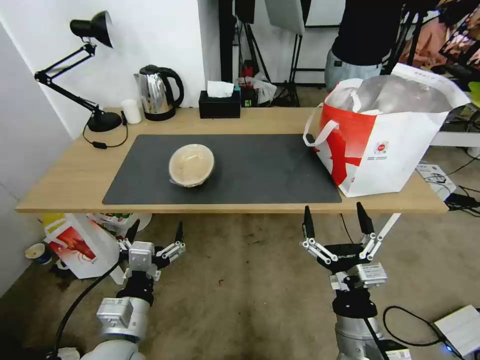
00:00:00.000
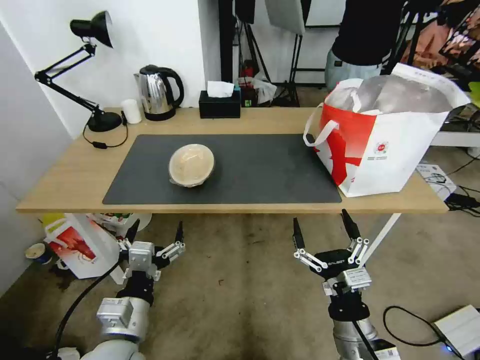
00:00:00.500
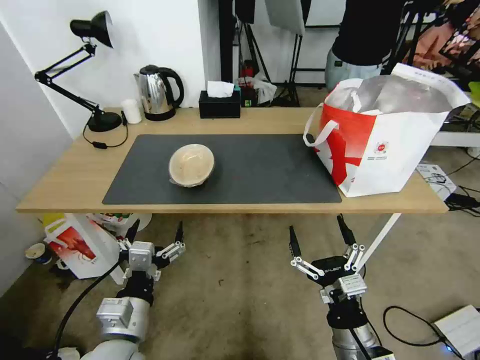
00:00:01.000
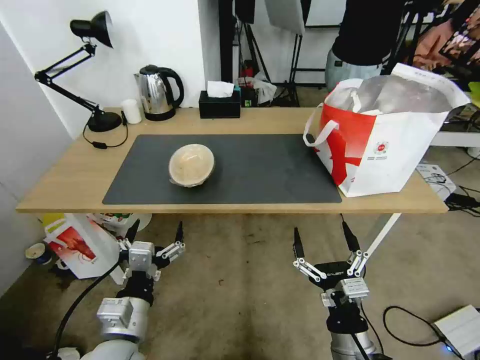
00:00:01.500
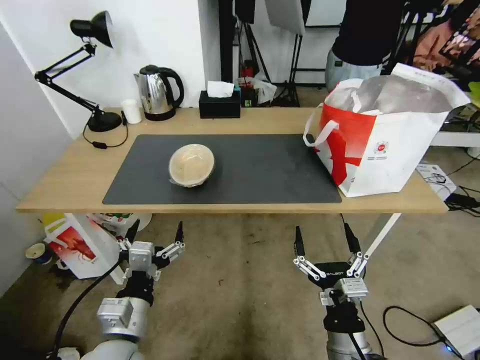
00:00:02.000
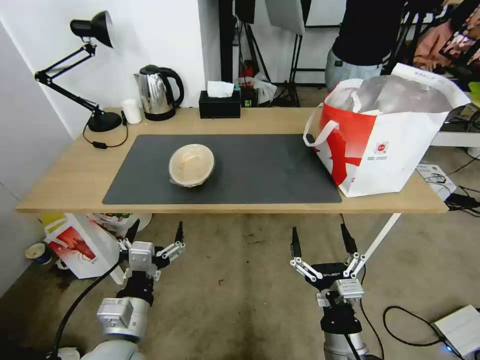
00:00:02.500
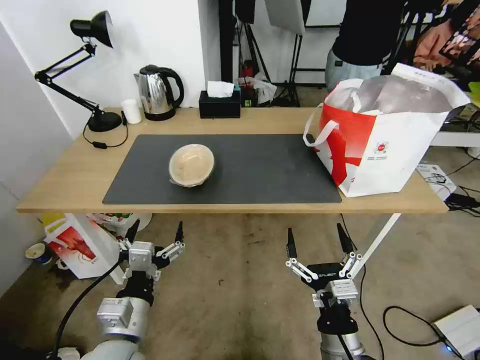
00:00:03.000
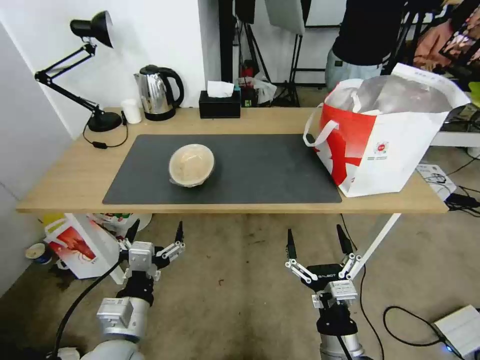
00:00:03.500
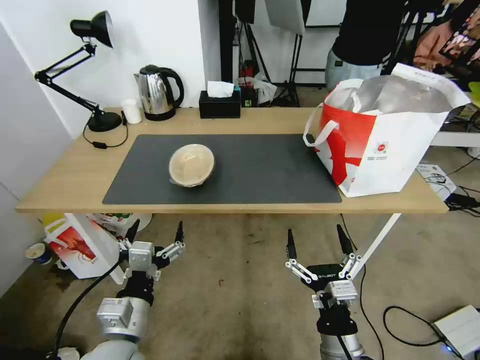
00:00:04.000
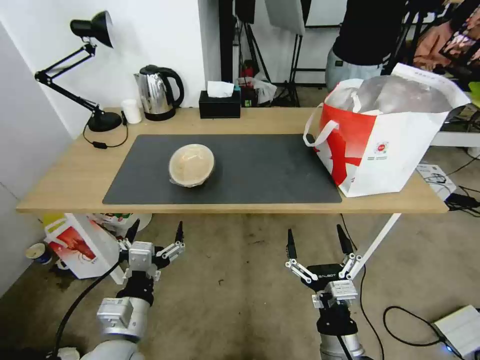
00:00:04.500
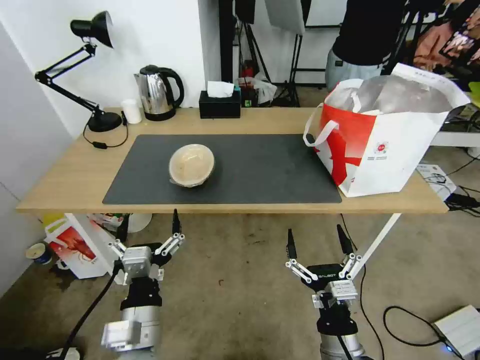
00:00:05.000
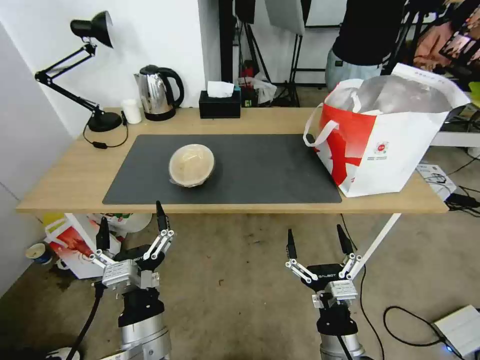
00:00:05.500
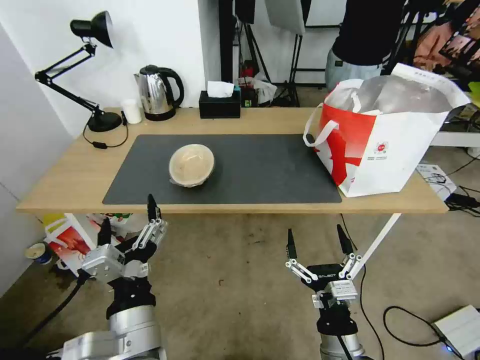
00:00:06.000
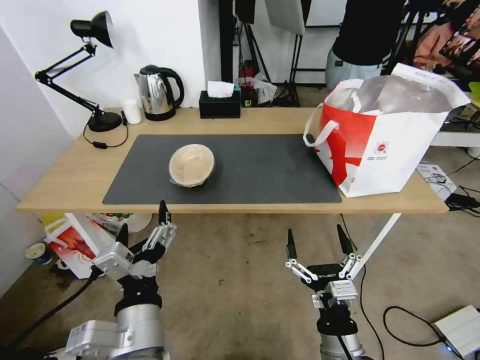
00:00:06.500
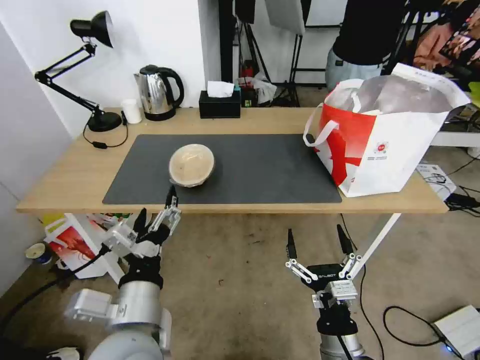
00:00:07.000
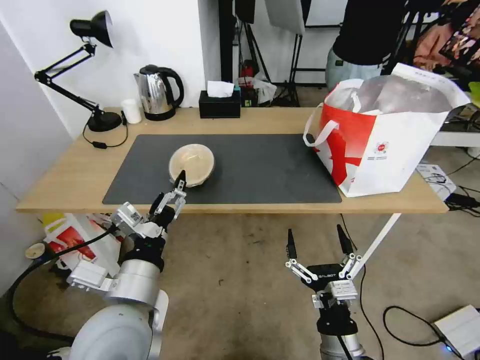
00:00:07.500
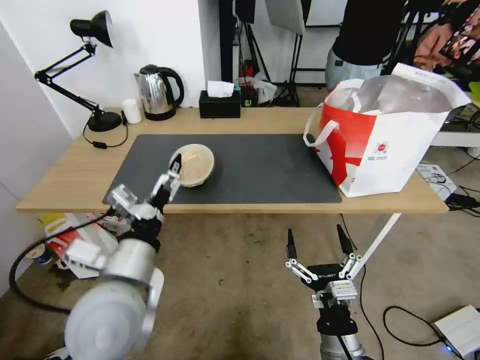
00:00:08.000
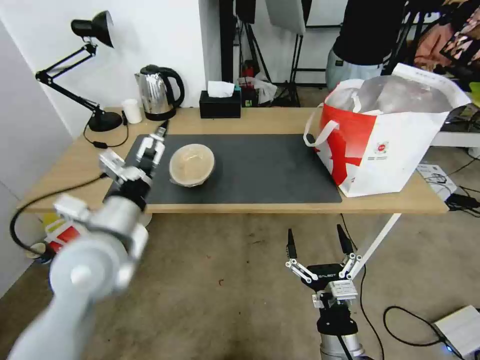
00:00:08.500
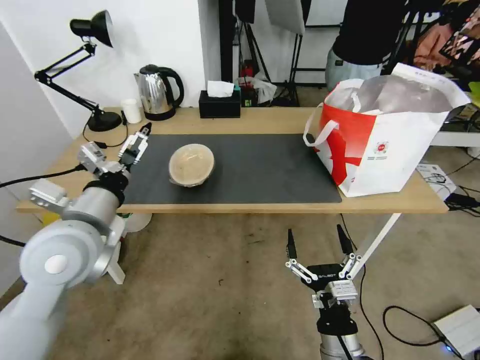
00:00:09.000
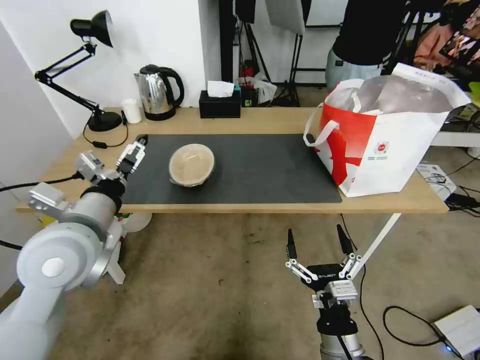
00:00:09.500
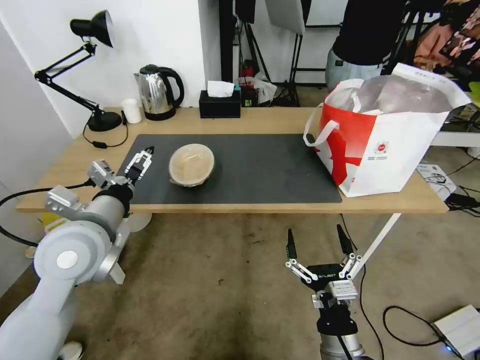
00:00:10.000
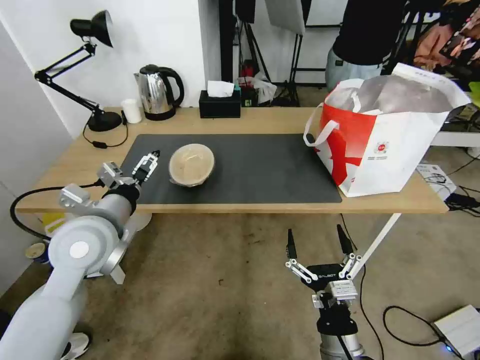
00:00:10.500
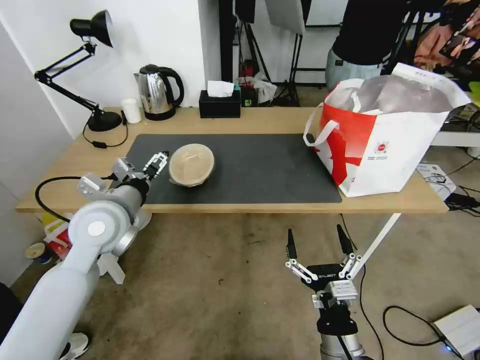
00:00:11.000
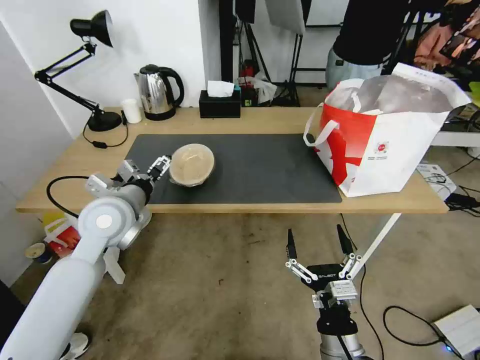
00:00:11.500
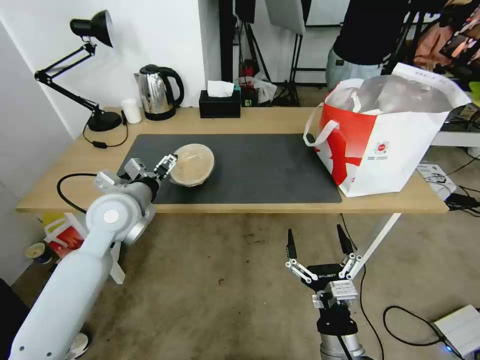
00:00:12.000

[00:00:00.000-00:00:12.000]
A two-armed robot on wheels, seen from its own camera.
Task of the whole recording: Pick up the trash from the table and place it into the takeout bag.
00:00:00.000 to 00:00:02.000: The right gripper changes place by some 5 cm.
00:00:02.000 to 00:00:04.000: The two grippers keep their place.
00:00:04.000 to 00:00:06.000: The left gripper is displaced to the right and upward by approximately 10 cm.
00:00:06.000 to 00:00:08.000: The left gripper travels forward and to the left by about 10 cm.
00:00:08.000 to 00:00:10.000: The left gripper moves forward and to the left, about 10 cm.
00:00:10.000 to 00:00:12.000: The left gripper shifts about 10 cm forward.

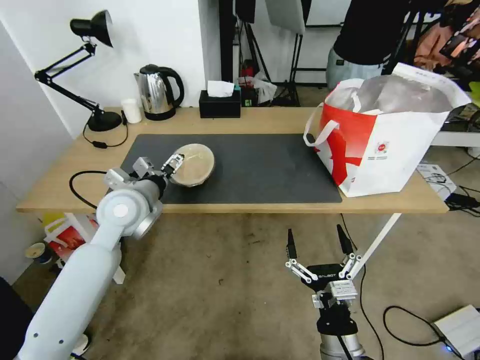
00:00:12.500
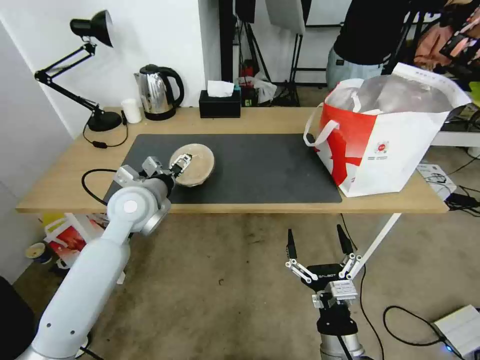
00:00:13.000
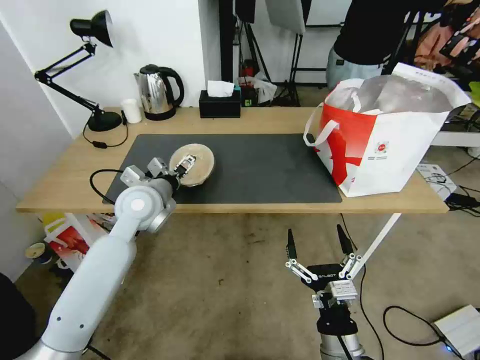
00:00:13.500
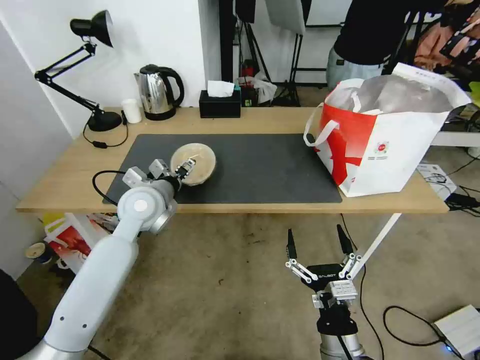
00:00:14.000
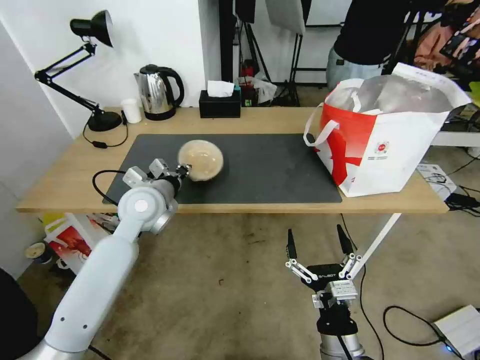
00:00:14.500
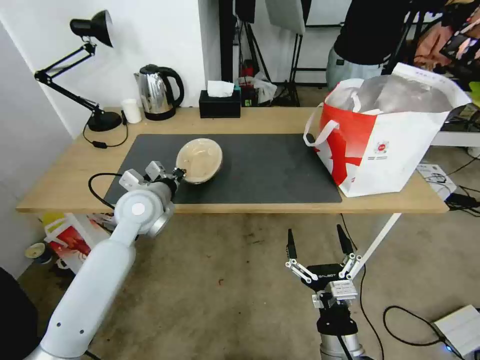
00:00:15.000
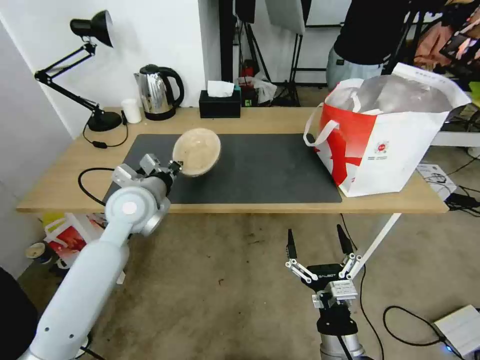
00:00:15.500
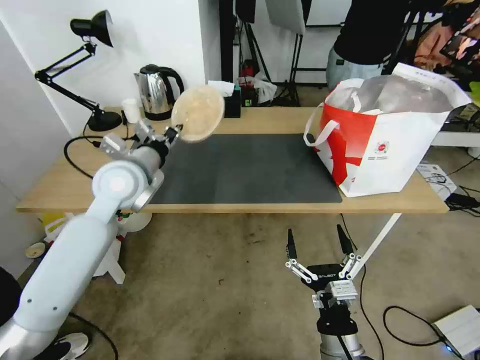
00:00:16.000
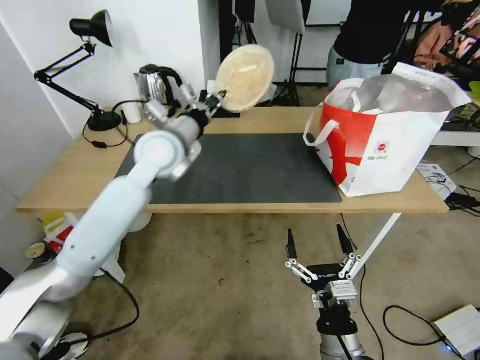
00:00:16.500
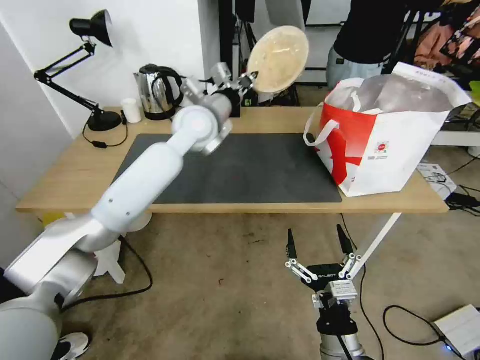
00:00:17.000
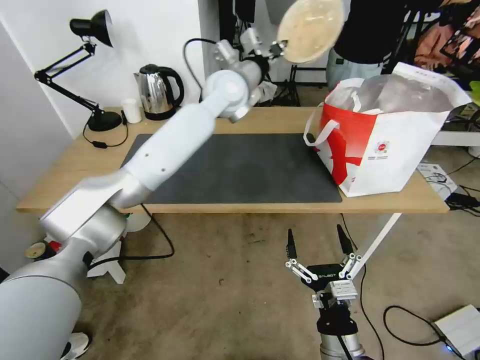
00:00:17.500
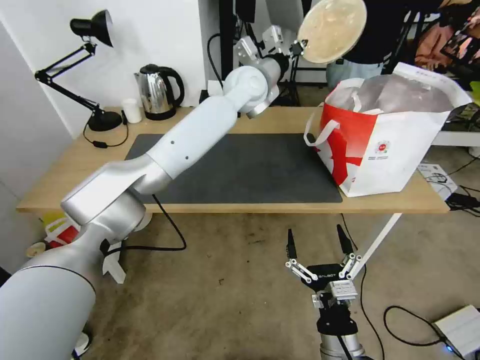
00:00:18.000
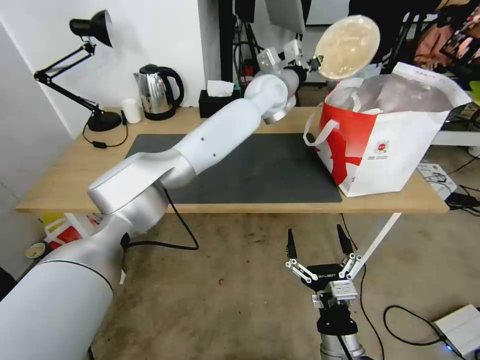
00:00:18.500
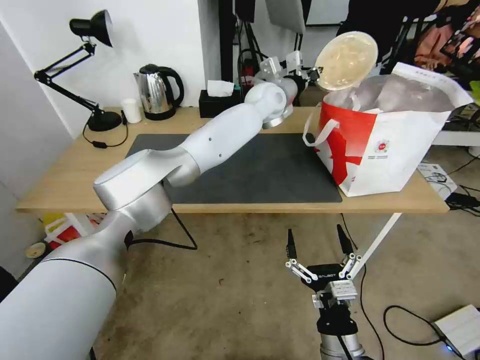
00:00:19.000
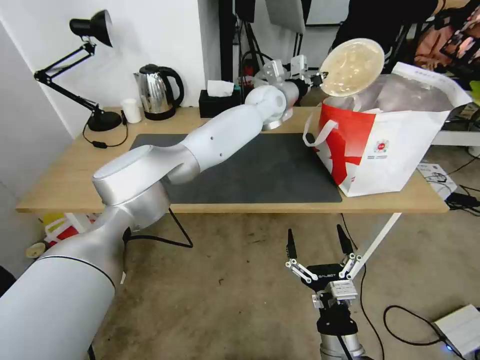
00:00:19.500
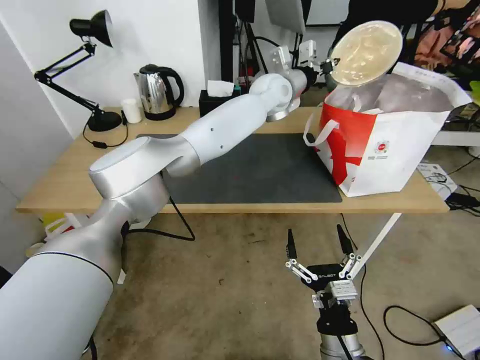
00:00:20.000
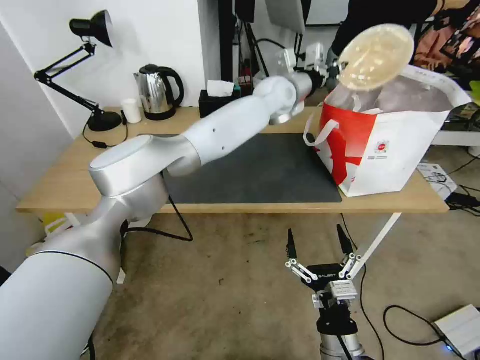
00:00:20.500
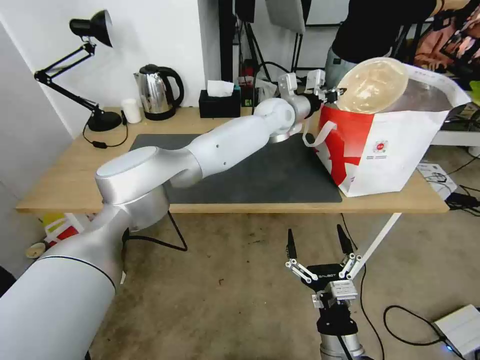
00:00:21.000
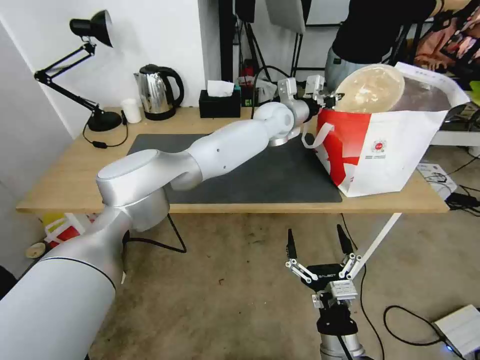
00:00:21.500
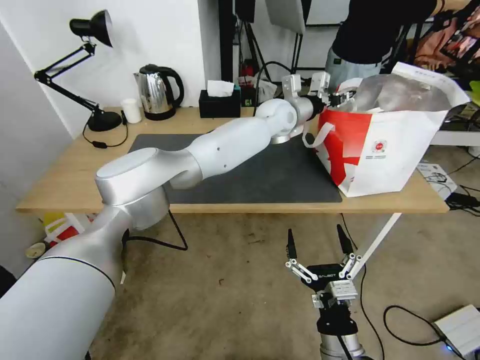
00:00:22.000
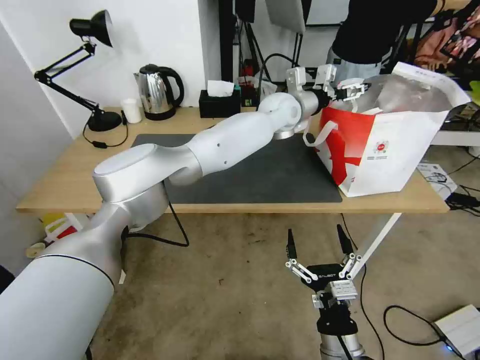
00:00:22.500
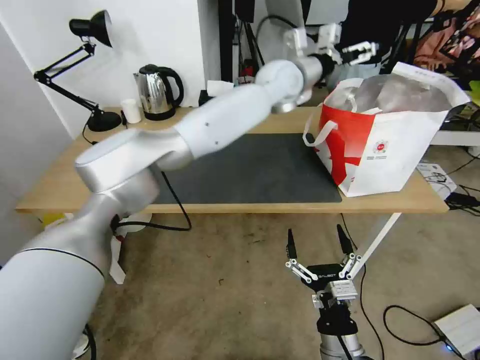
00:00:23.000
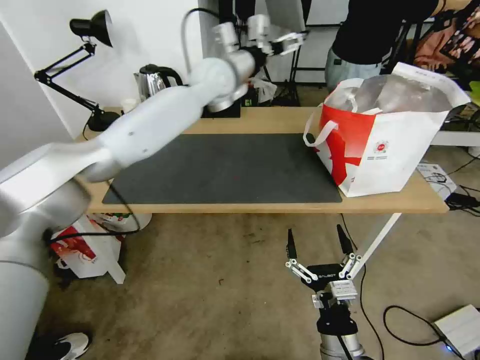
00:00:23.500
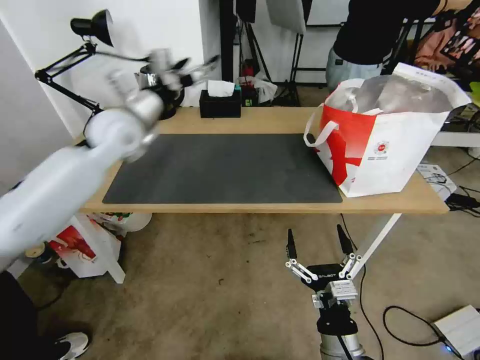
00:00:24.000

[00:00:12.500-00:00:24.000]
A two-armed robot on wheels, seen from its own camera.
Task of the whole recording: Pick up the trash from the table and place it into the takeout bag.
00:00:12.500 to 00:00:14.500: The left gripper closes.
00:00:14.500 to 00:00:16.500: The left gripper shifts roughly 10 cm upward and forward.
00:00:16.500 to 00:00:18.500: The left gripper travels to the right and forward by roughly 25 cm.
00:00:18.500 to 00:00:20.000: The grippers make only small movements.
00:00:20.000 to 00:00:22.000: The left gripper heads downward, covering roughly 5 cm.
00:00:22.000 to 00:00:24.000: The left gripper moves to the left, roughly 35 cm, and opens up.

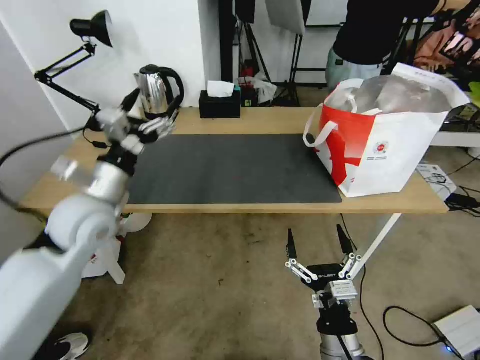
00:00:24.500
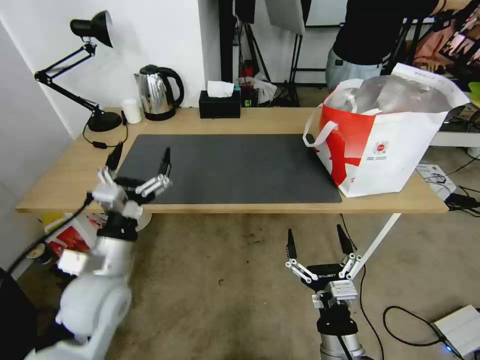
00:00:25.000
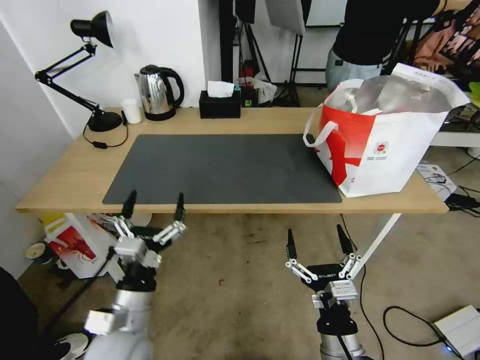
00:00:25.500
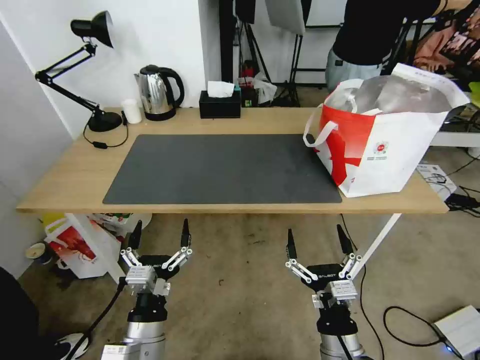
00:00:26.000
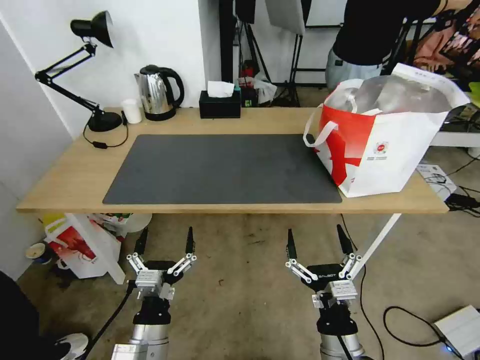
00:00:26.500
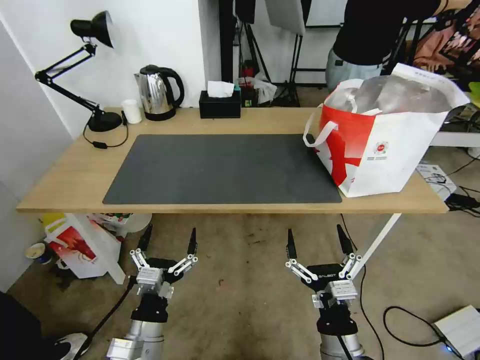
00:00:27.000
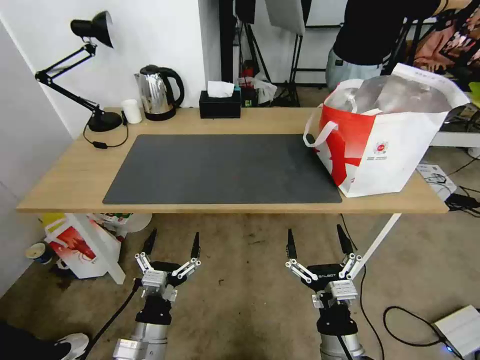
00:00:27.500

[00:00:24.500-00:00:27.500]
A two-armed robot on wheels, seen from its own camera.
Task of the whole recording: Pick up the trash from the table and place it into the takeout bag.
00:00:24.500 to 00:00:26.000: The left gripper travels backward, downward and to the right by about 30 cm.
00:00:26.000 to 00:00:27.500: The grippers make only small movements.
